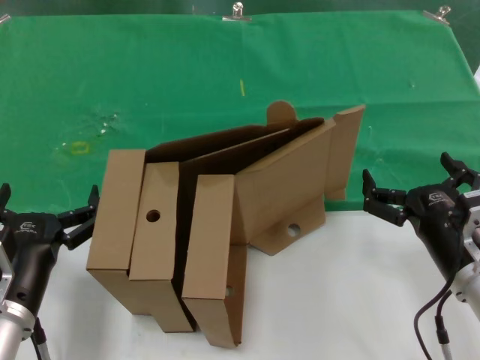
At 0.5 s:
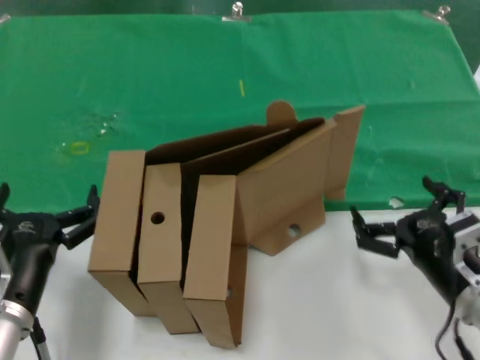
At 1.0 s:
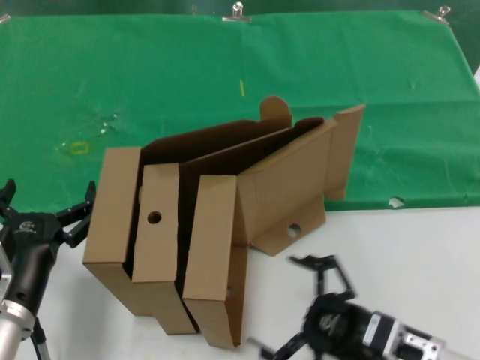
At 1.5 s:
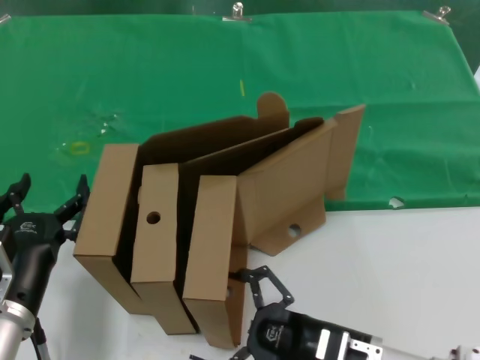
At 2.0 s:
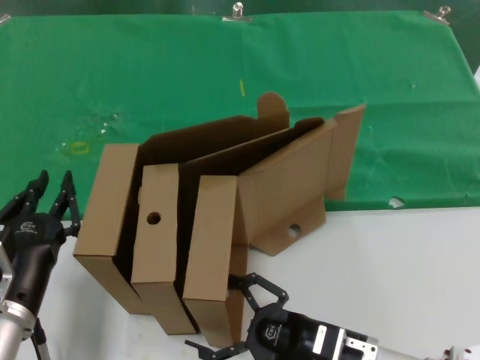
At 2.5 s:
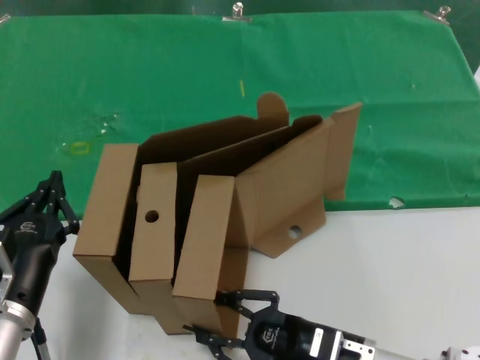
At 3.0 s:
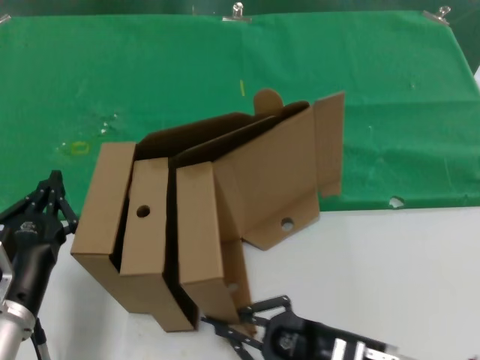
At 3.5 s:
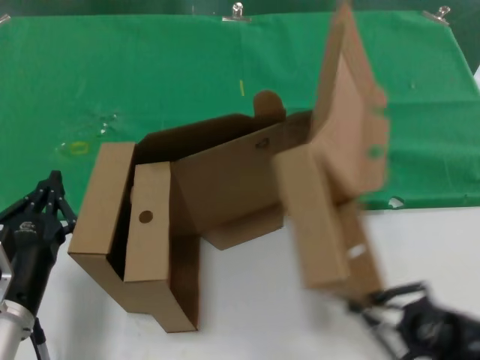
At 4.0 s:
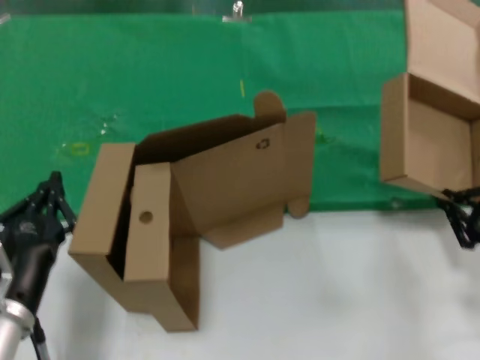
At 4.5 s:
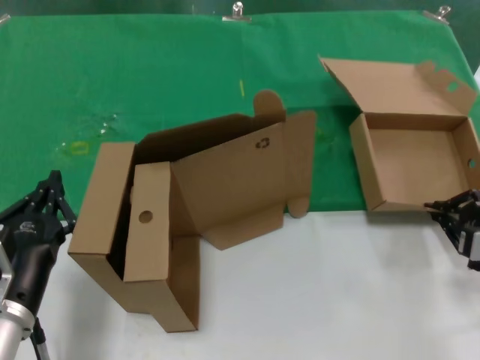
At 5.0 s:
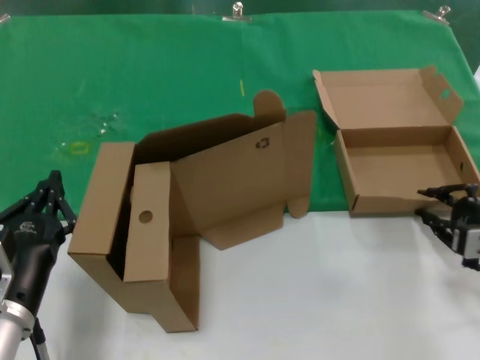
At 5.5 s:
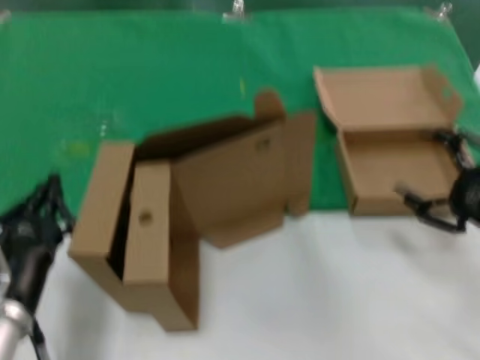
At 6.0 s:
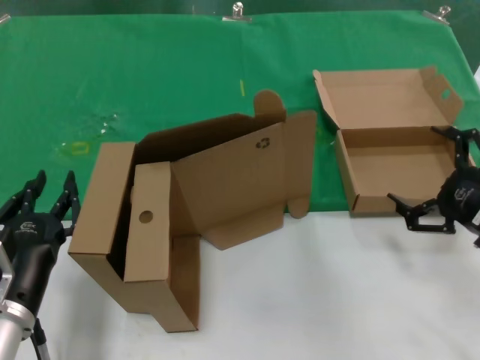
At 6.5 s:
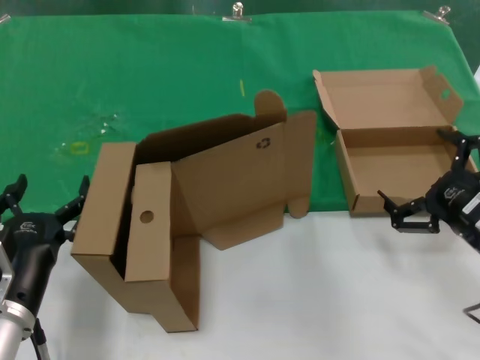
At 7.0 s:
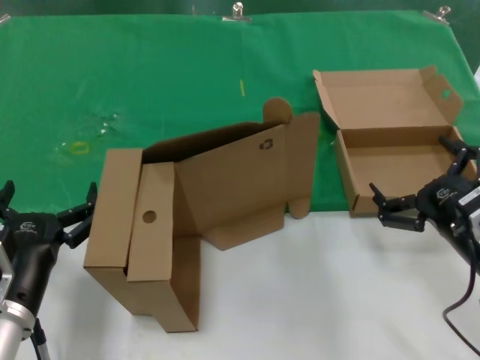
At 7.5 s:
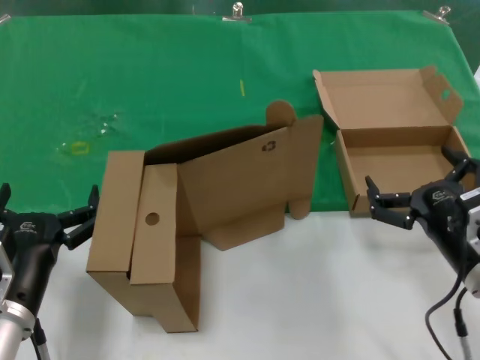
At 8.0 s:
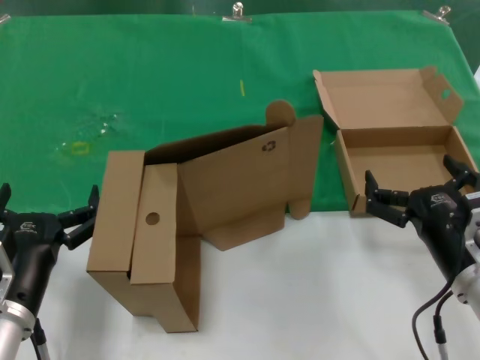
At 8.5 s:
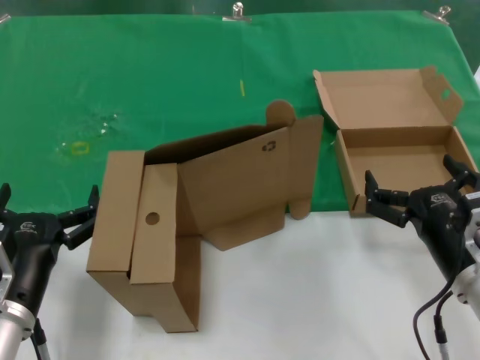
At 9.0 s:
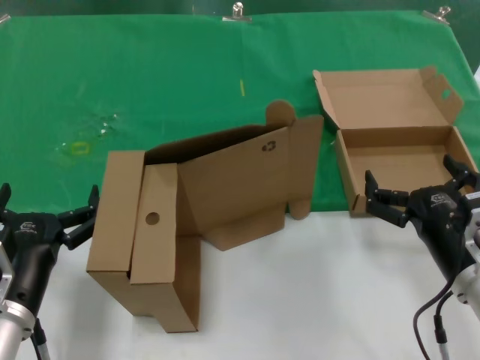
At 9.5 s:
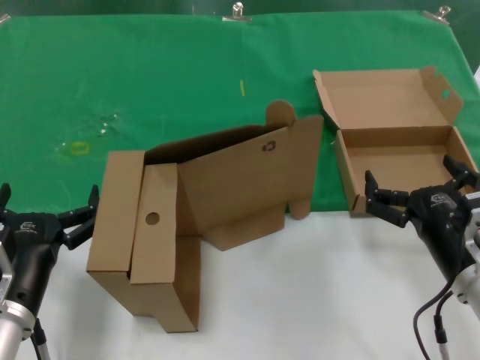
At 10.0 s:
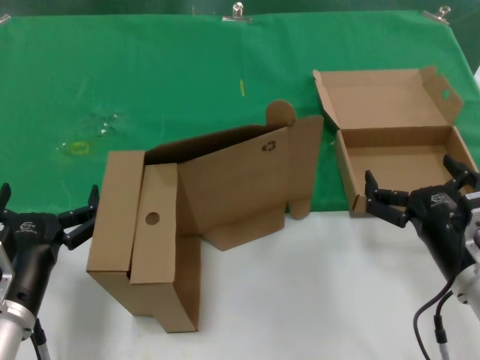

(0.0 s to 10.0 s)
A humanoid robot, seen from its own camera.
Task of the whole recording: pick up the paper box and put it at the back.
Step, 0.0 s - 2.5 s: Grasp the paper box.
Step, 3.5 s - 5.0 s: Place the paper box on the table.
0.0 s - 2.0 s: The right hand heads downward and to the left, covering roughly 15 cm.
2.0 s - 4.0 s: The right hand moves to the right and upward, some 25 cm.
4.0 s - 6.0 s: The right hand changes place by some 5 cm.
6.0 s - 8.0 s: The right hand travels to the left and downward by roughly 10 cm.
8.0 s - 10.0 s: The two hands keep their place.
